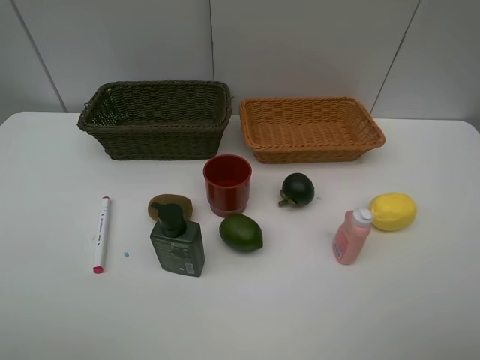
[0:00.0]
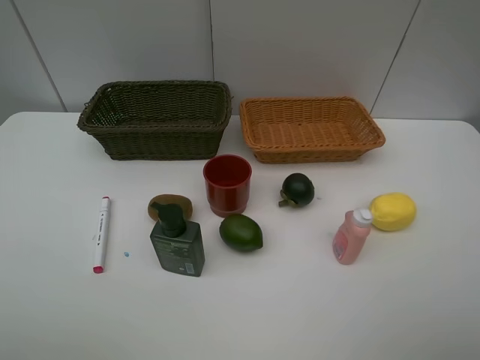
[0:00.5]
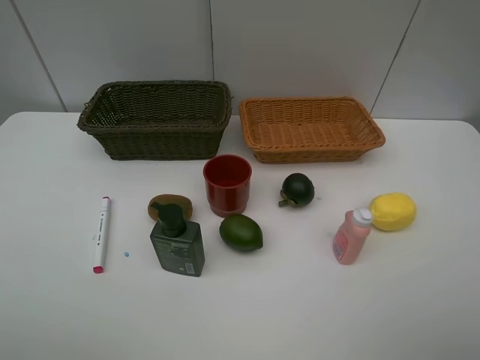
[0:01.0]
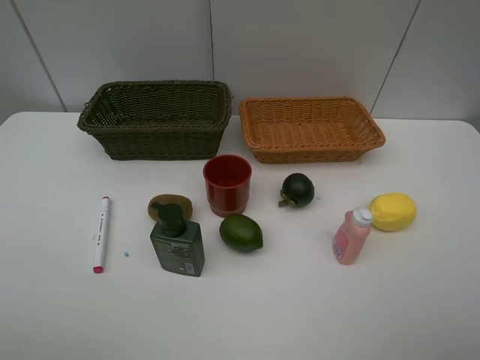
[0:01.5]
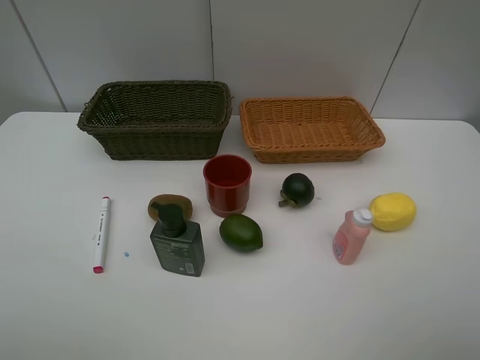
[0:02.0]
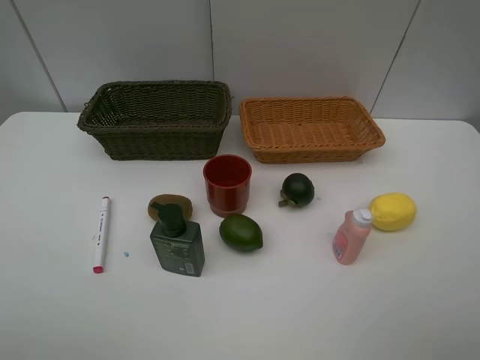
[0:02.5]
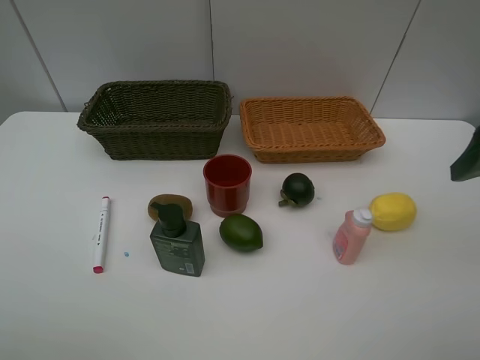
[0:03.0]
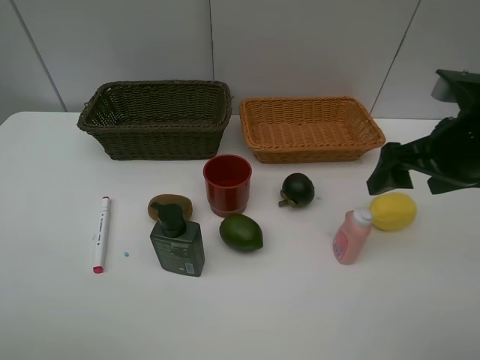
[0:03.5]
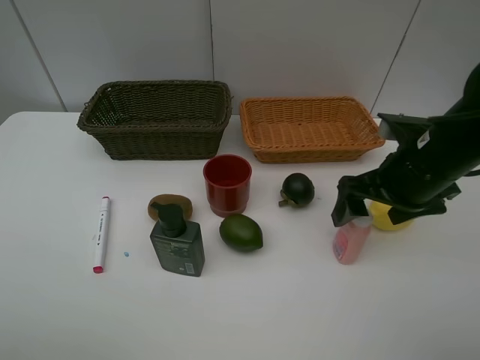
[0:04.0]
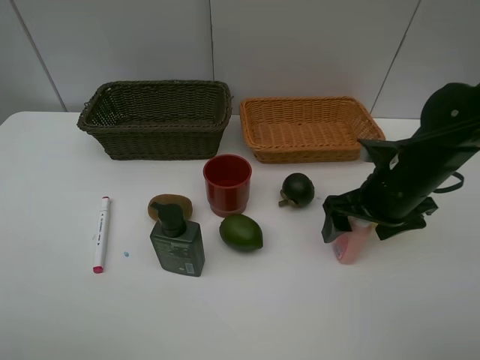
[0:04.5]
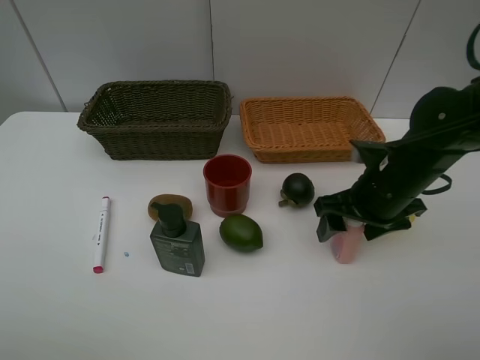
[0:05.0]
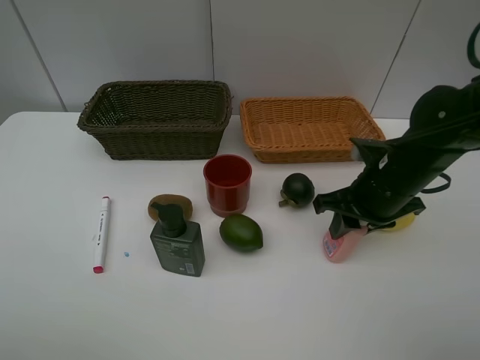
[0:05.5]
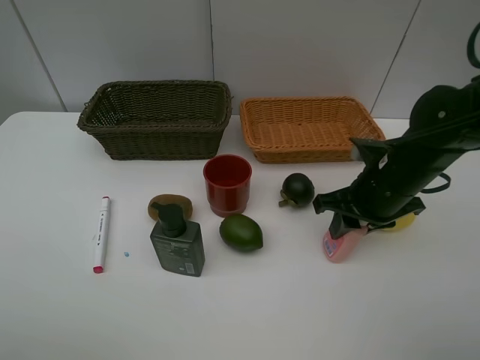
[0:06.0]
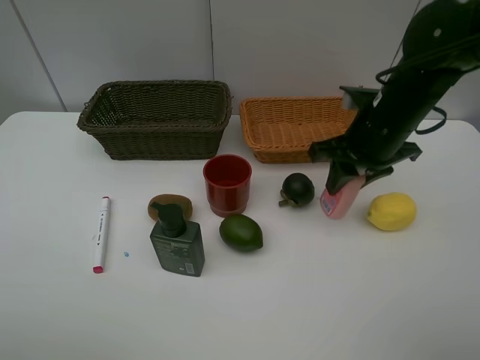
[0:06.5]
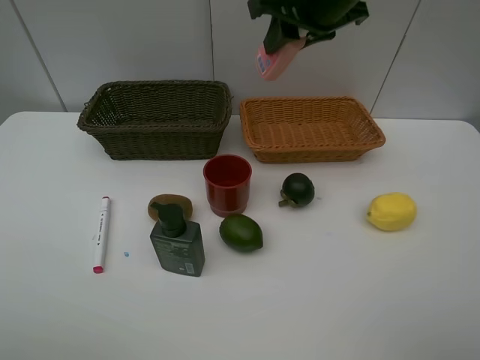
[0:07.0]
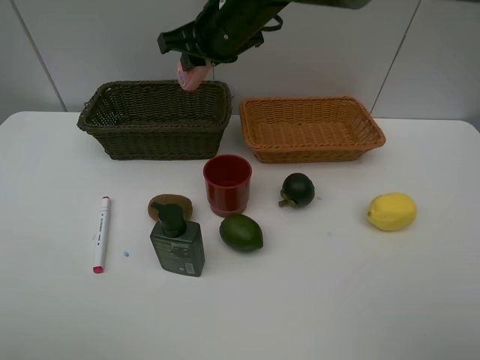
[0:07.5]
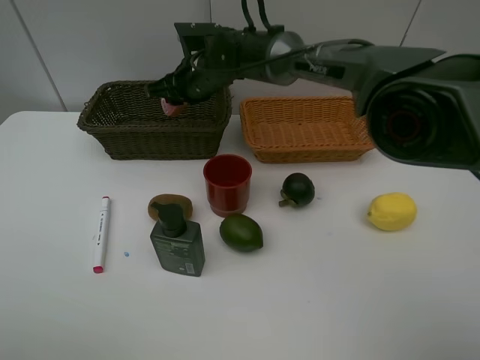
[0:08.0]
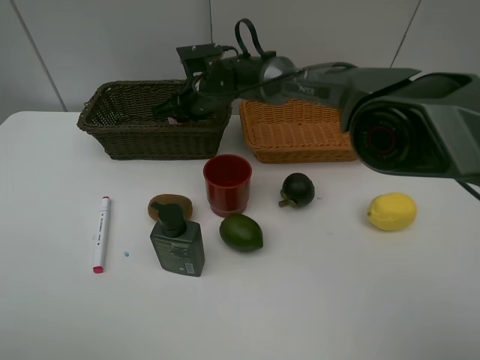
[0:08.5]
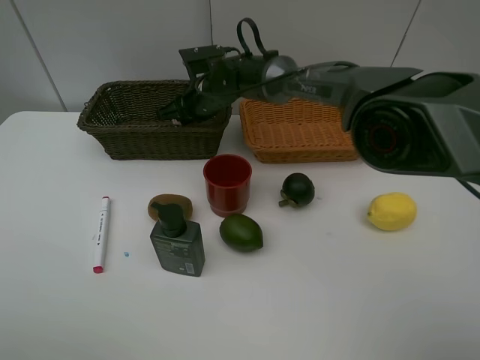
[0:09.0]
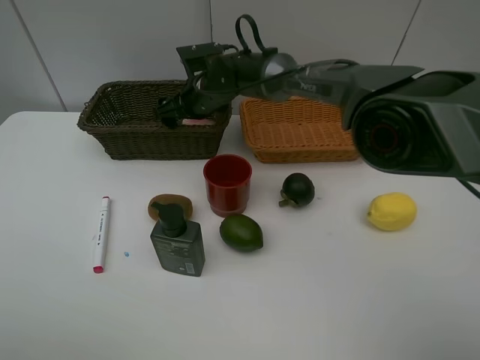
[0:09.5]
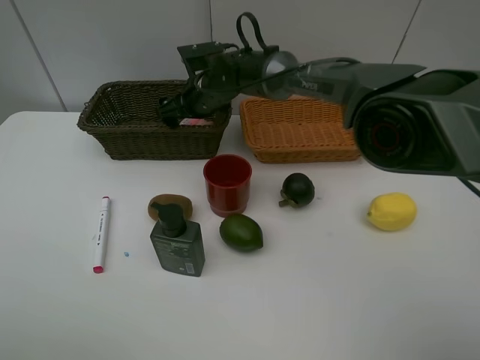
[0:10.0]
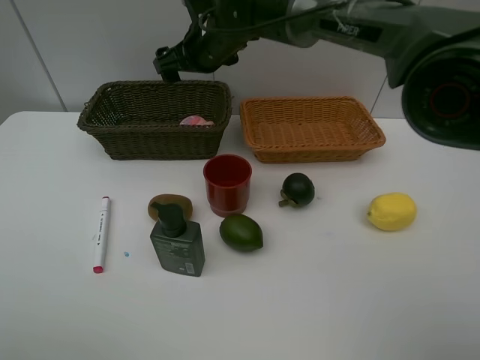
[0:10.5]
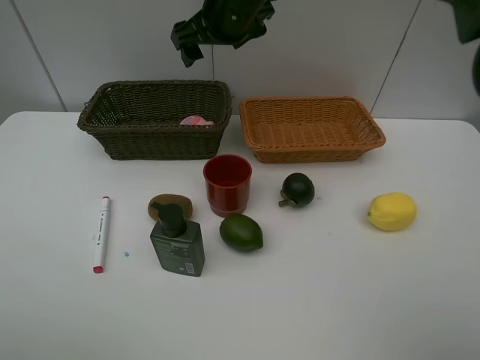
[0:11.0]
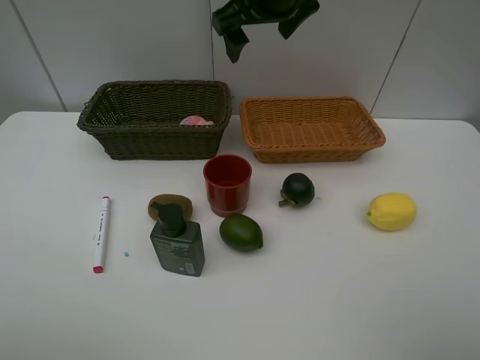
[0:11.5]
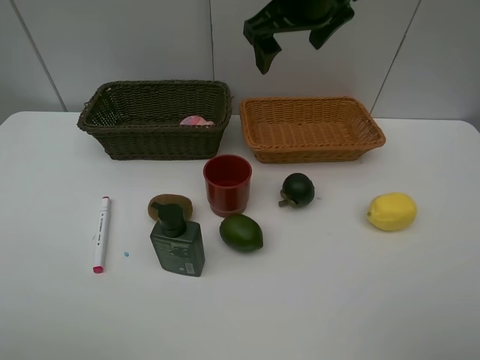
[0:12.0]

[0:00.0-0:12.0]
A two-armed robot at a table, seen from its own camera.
Task of the whole recording: Place multiple objects separately in different baskets.
Step, 0:00.0 to 0:06.0: Pick up the laundry detergent with right gripper.
Step, 0:06.5 to 0:10.0: Place the laundry detergent in the dark basket with right gripper.
0:00.0 to 0:02.0: Both grippers stay put.
0:02.0 to 0:04.0: The right gripper heads forward and downward, covering some 25 cm.
0:04.0 to 0:06.0: The right gripper closes.
0:06.0 to 0:08.0: The right gripper goes roughly 30 cm to the left and forward.
0:08.0 to 0:10.0: The right gripper opens.
0:10.0 to 0:12.0: The right gripper heads upward, to the right and backward, covering roughly 25 cm.

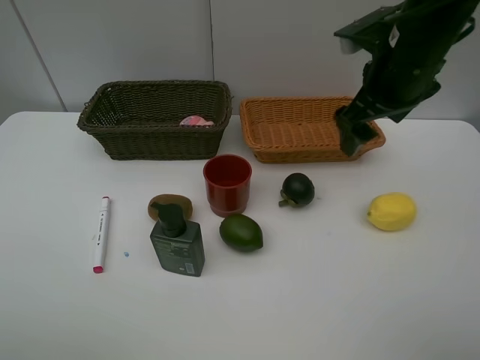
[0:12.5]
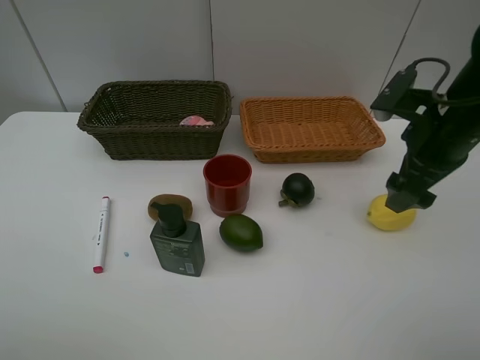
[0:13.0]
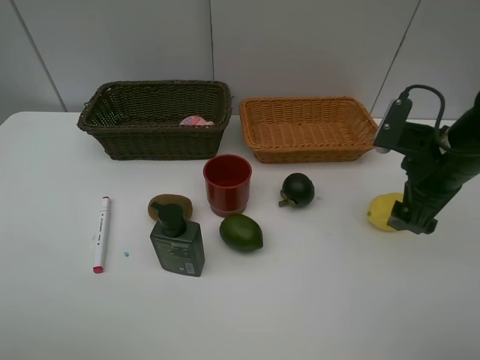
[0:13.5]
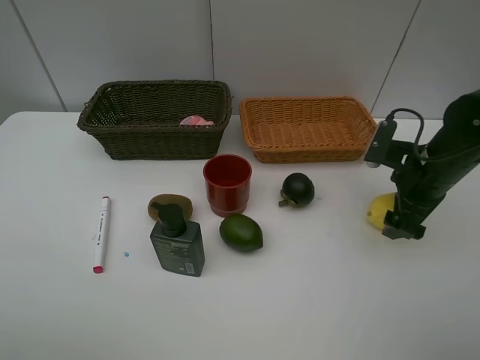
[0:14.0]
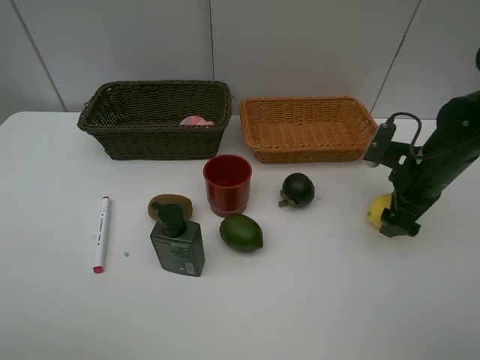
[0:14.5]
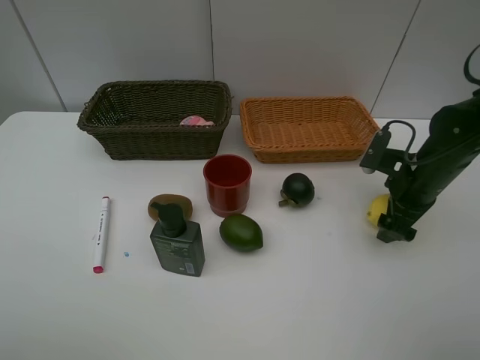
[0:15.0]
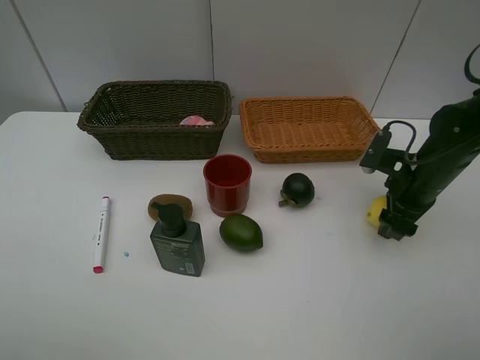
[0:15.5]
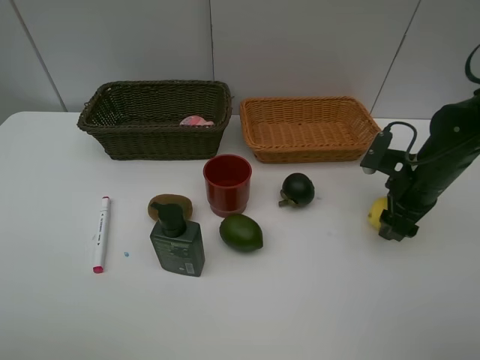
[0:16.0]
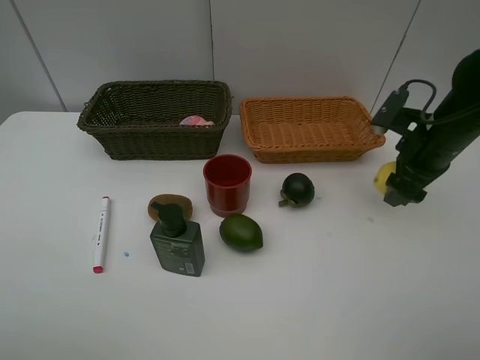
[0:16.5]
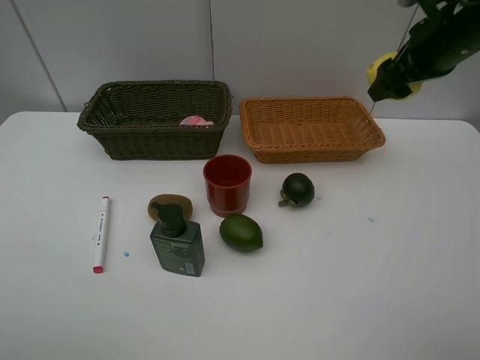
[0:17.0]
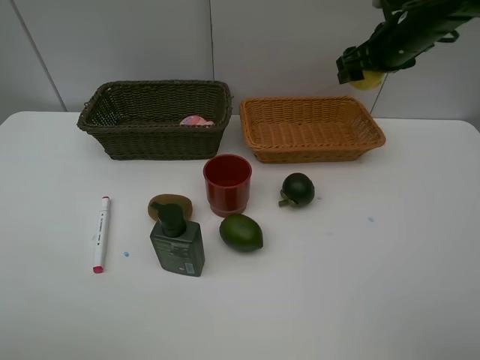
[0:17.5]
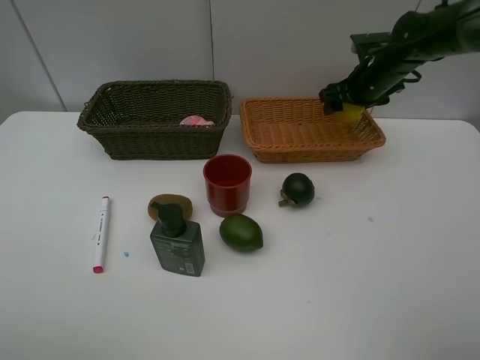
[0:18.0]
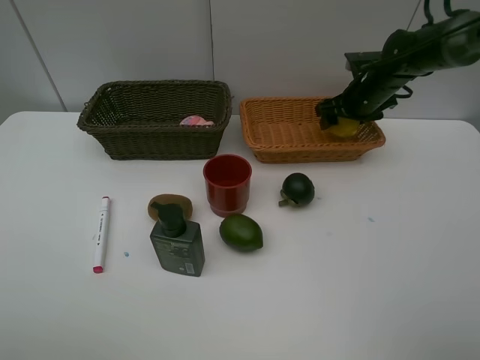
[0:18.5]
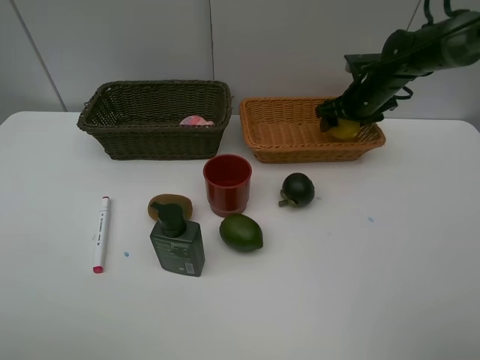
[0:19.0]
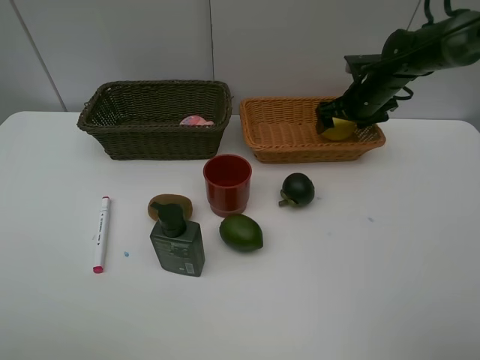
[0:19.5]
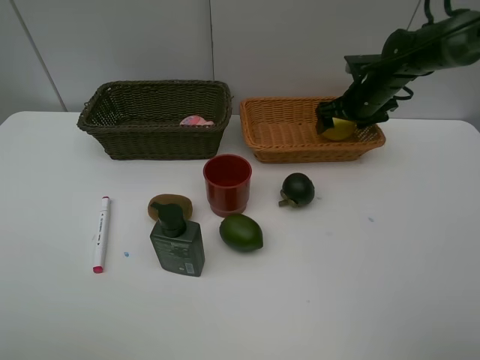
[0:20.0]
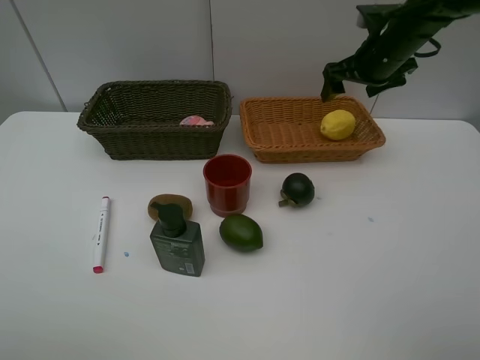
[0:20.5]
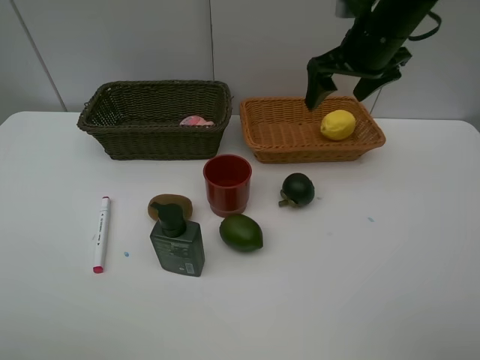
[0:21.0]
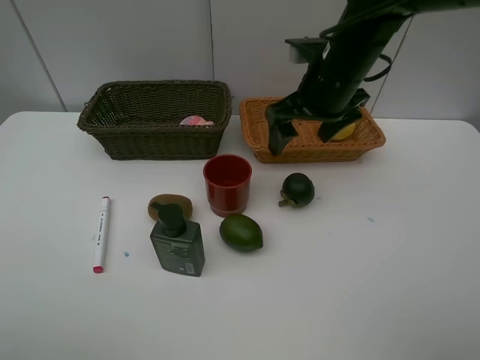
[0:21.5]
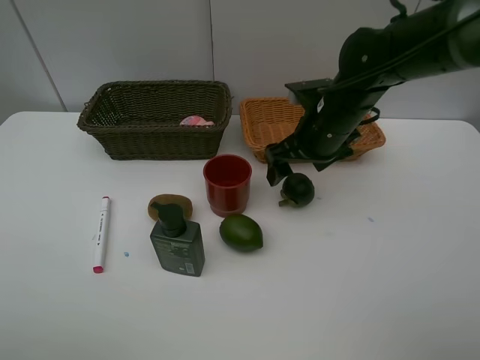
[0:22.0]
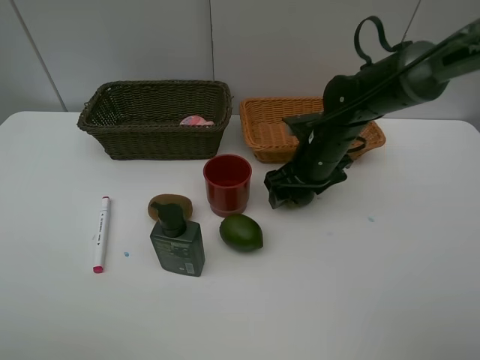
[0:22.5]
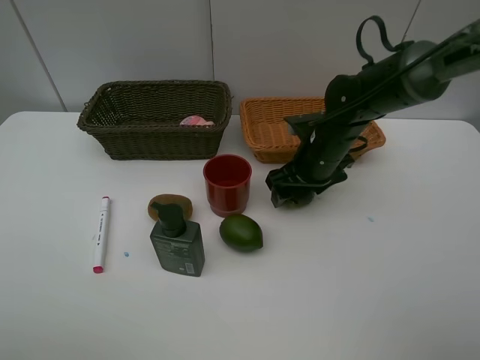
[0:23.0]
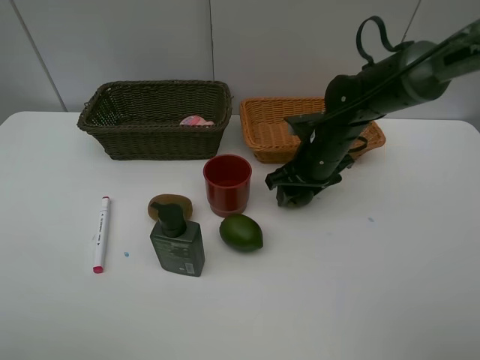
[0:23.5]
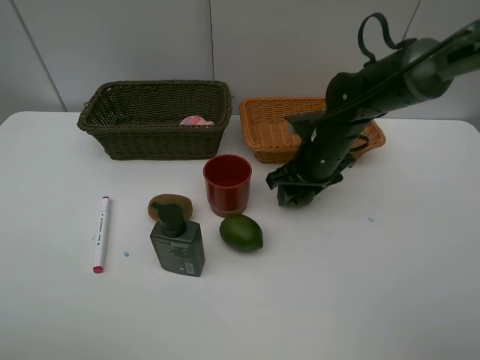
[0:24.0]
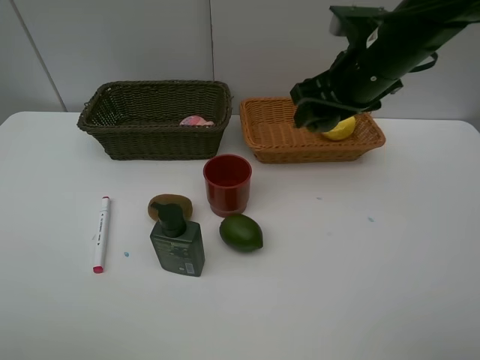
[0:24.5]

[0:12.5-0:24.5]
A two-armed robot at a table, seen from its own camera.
Task of the whole recording: Place multiple objects separately in different baskets.
Step, 0:12.5 to 0:16.5: Pick up the lemon with right gripper.
Step, 0:17.0 to 0:20.0: Place the lemon in the light basket with right gripper.
Step, 0:20.5 to 0:24.0: Pick up the mangosteen with right gripper.
0:12.5 to 0:14.5: The right gripper shifts roughly 15 cm downward and to the right.
0:14.5 to 0:16.5: The right gripper is displaced upward by roughly 5 cm.
0:16.5 to 0:18.5: The right gripper is displaced forward by about 15 cm.
0:18.5 to 0:20.5: The right gripper heads upward, covering some 10 cm.
0:20.5 to 0:22.5: The right gripper heads downward, to the left and backward, covering approximately 20 cm.
0:22.5 to 0:24.5: The right gripper is displaced upward by roughly 15 cm.

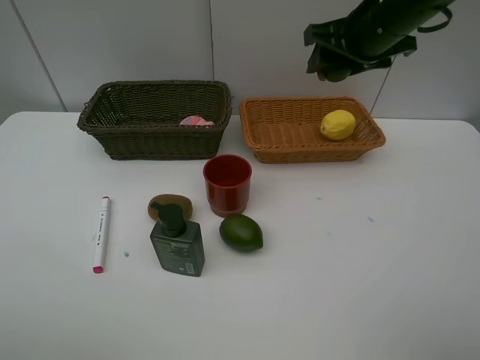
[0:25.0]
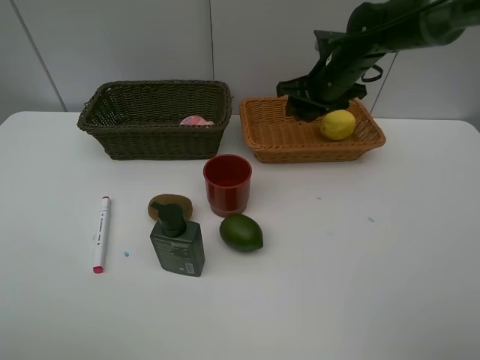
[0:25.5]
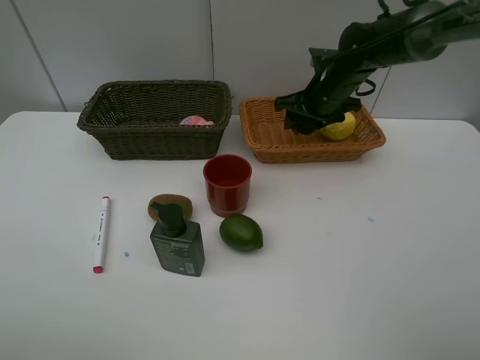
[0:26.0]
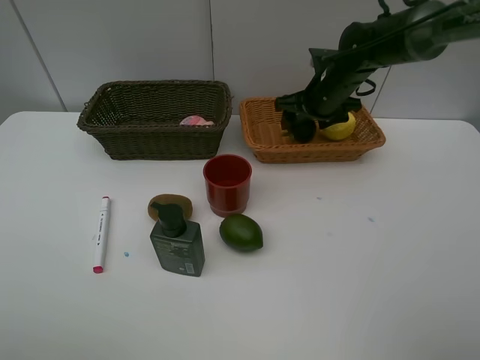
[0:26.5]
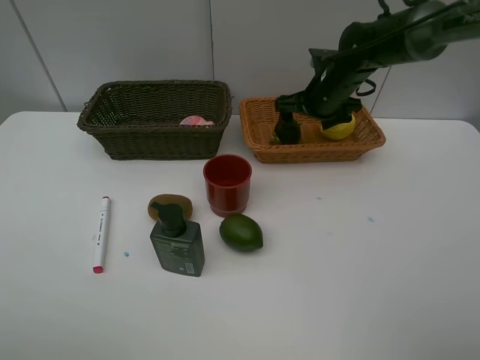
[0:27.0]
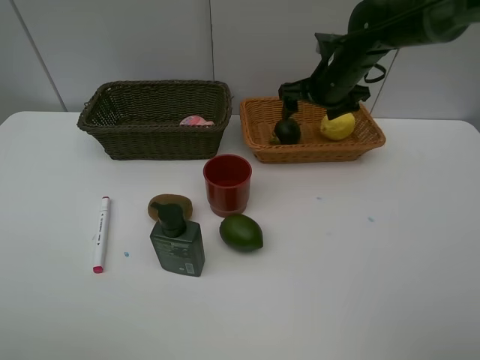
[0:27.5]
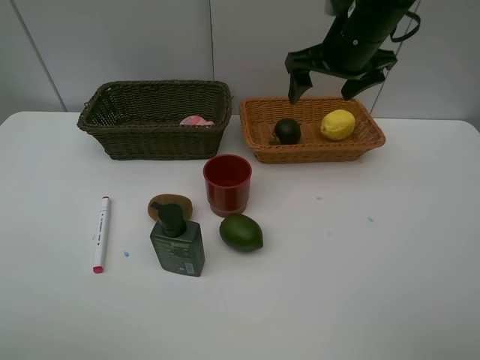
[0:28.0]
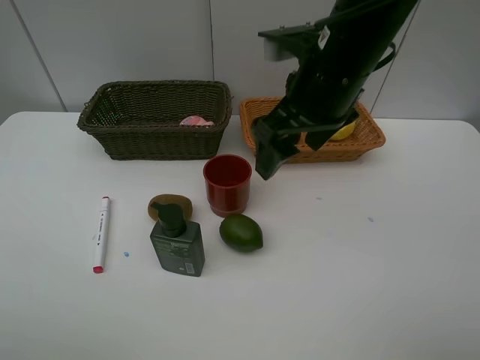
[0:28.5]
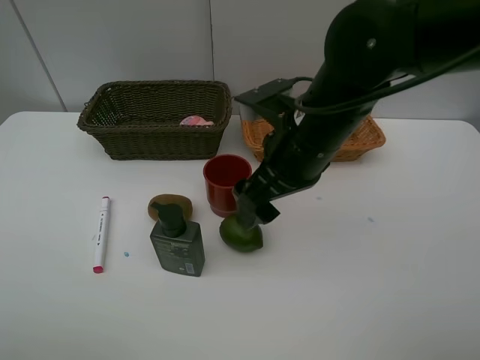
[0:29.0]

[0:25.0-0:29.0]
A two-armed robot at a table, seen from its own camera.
Task of the whole recording: Place multiple objects separately in different baskets.
Step, 0:25.0 to 0:27.5: Place the mangosteen in the light basket with right gripper.
0:25.0 to 0:27.0: The right gripper goes about 15 cm downward and forward.
0:27.0 to 0:29.0: The right gripper goes some 20 cm backward and to the left.
